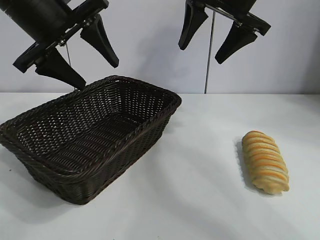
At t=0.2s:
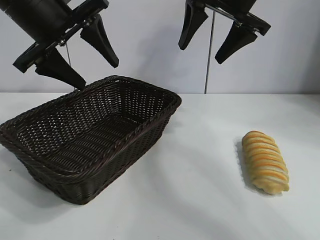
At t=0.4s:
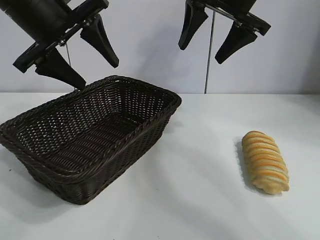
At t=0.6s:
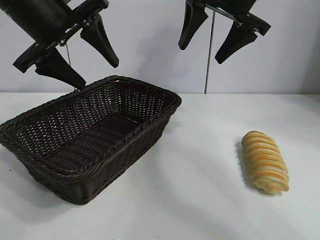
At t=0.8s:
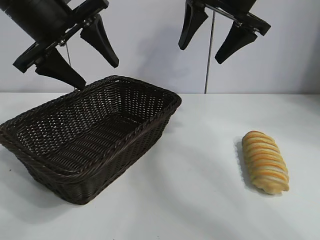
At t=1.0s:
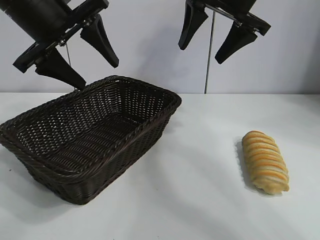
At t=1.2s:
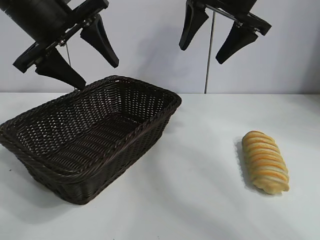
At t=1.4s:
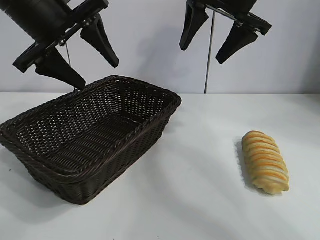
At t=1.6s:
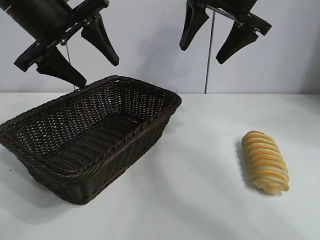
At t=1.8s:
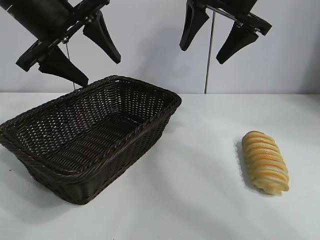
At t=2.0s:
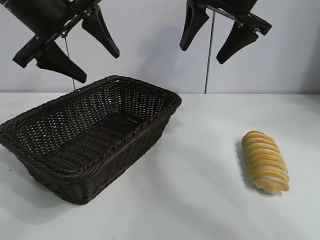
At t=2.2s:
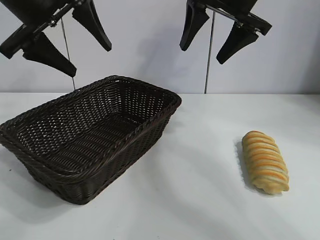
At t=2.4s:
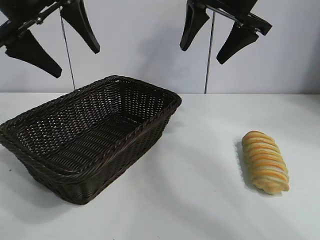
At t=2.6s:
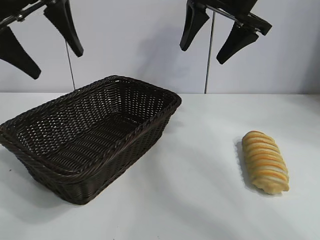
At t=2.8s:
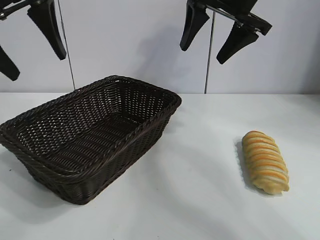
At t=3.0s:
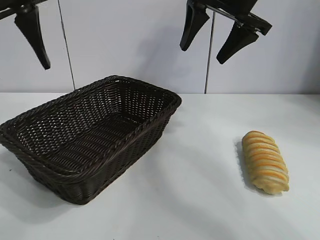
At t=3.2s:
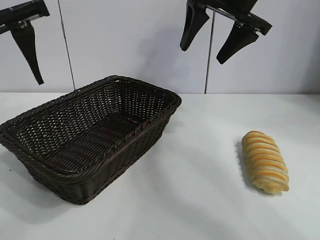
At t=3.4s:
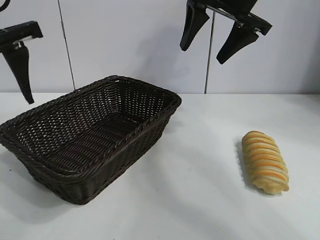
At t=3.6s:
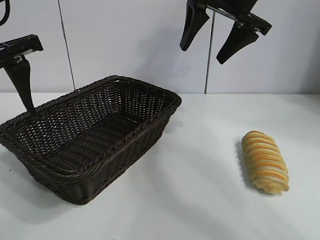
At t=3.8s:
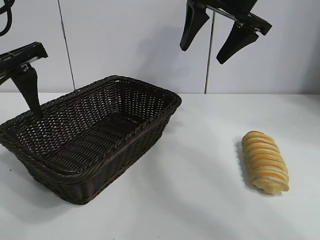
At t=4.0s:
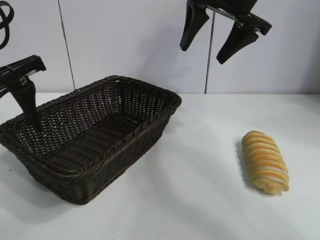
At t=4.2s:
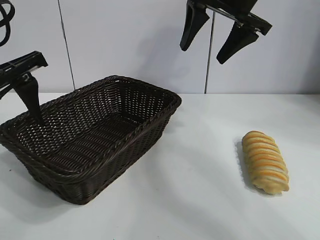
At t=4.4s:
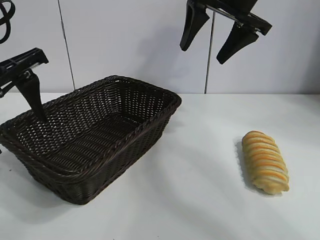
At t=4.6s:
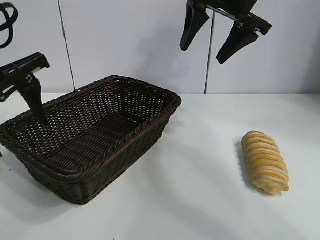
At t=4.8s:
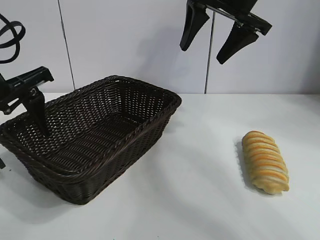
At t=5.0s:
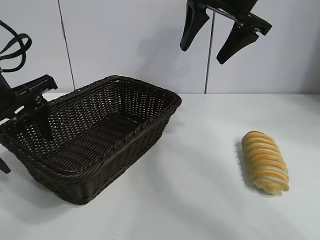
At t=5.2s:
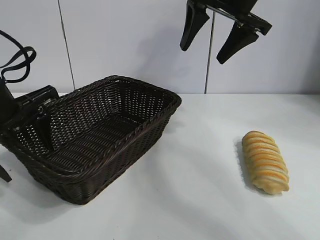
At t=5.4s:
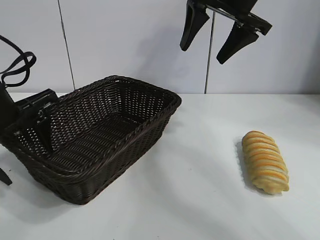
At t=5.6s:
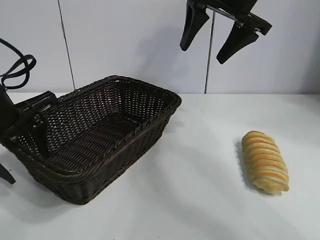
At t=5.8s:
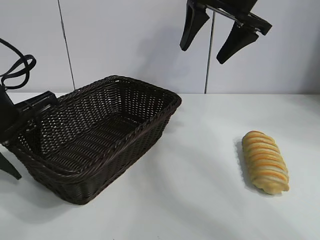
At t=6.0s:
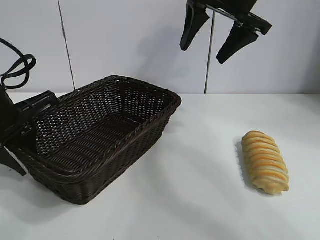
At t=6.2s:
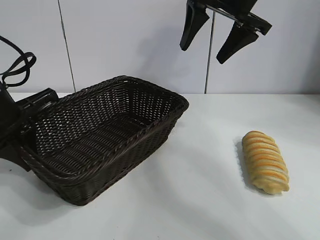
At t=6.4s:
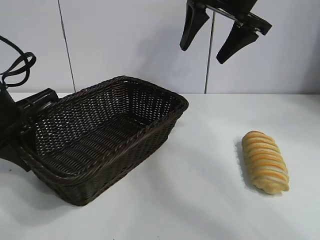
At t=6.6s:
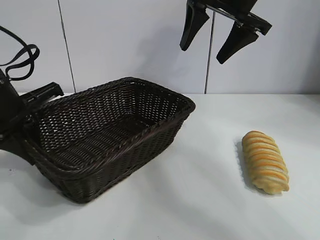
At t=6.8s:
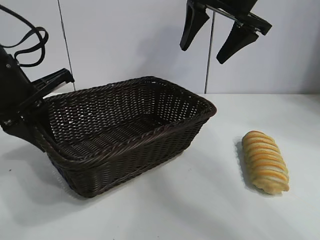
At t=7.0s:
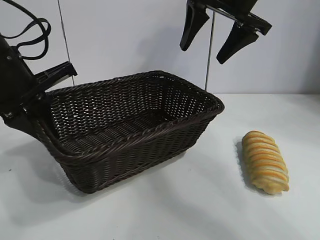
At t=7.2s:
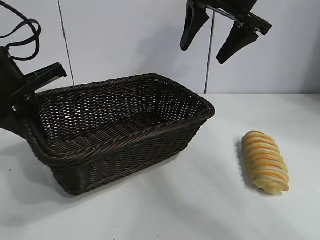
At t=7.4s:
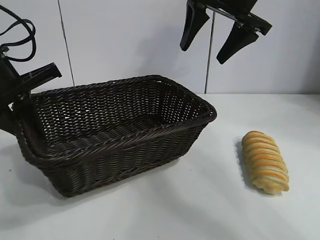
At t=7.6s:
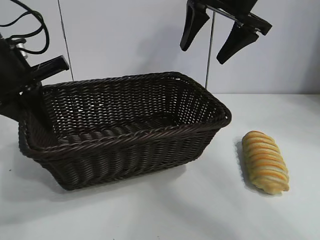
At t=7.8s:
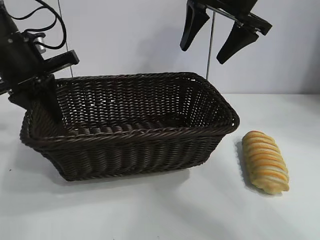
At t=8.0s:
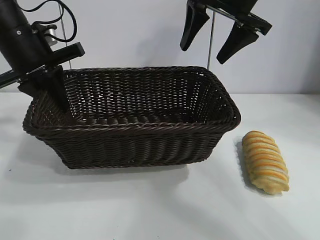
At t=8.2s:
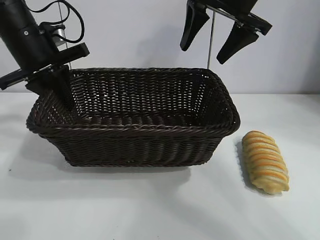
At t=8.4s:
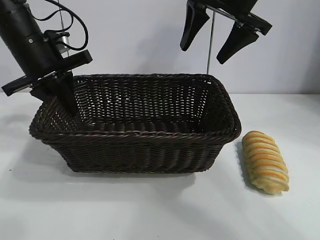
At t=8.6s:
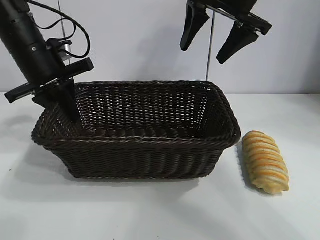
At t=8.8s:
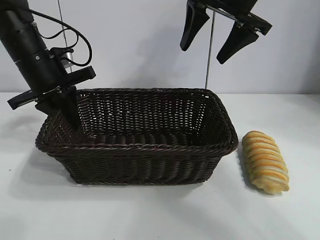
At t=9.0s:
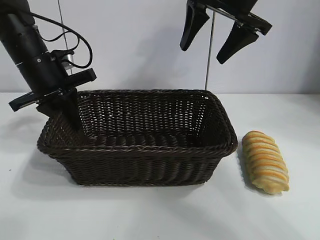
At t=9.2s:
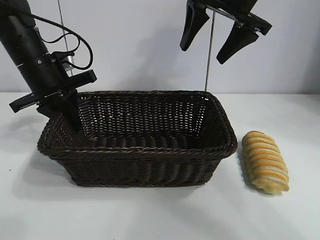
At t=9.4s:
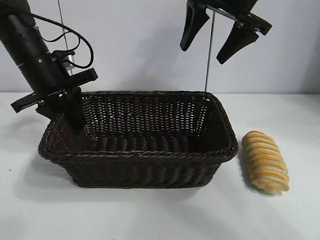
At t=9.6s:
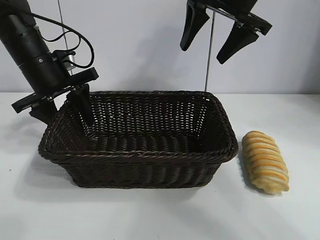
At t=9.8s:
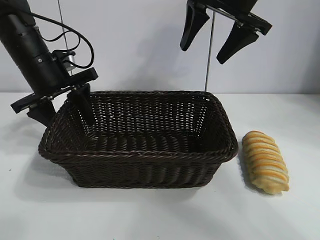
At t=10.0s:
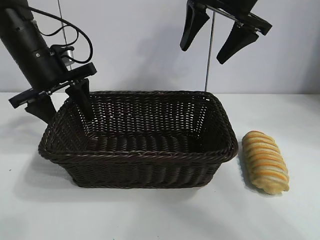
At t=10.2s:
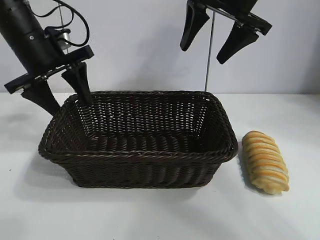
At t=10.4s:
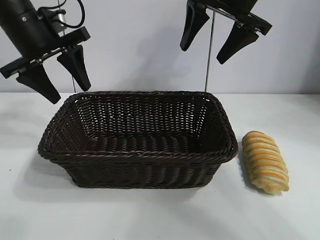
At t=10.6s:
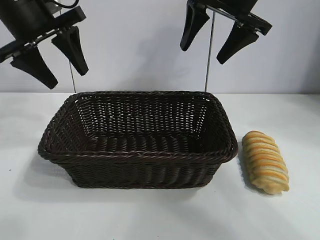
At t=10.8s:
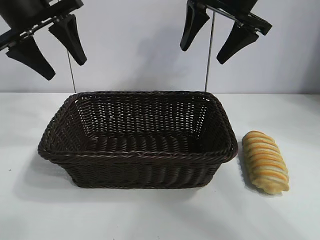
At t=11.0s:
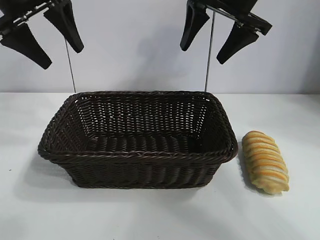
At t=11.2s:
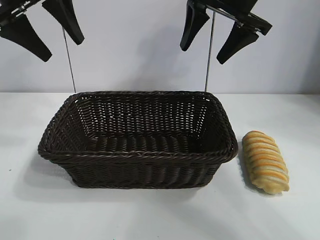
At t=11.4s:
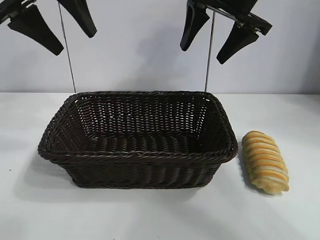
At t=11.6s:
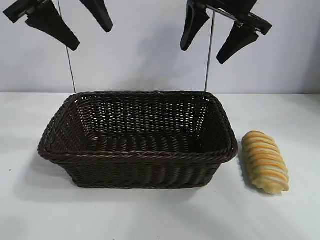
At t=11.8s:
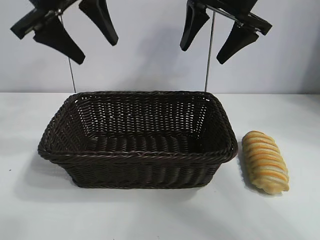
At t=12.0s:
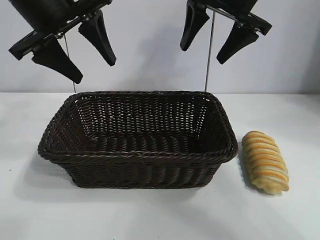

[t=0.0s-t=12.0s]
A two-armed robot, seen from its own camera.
Task of the whole recording: pick up the long bread and put it into the basket.
Step, t=1.6s to t=6.4s: Grasp the basket with the left gripper.
Step, t=6.6s to t=9.8s: Place the basket in the center of the table with the left gripper.

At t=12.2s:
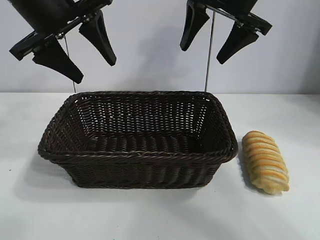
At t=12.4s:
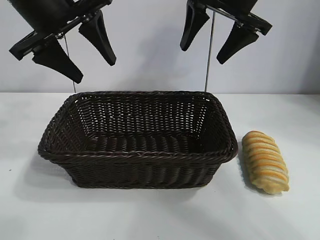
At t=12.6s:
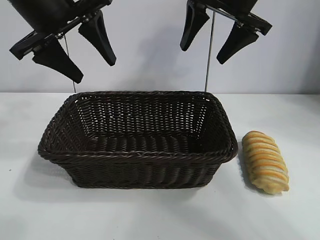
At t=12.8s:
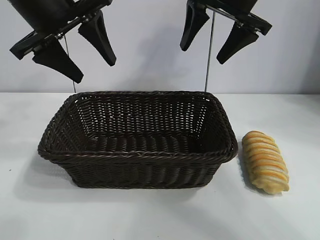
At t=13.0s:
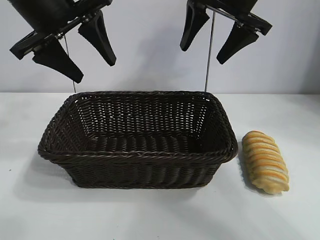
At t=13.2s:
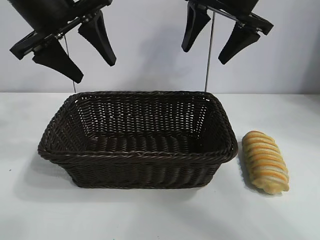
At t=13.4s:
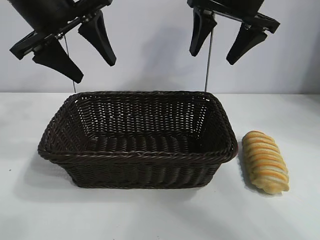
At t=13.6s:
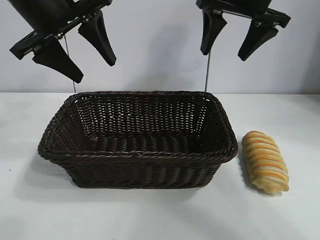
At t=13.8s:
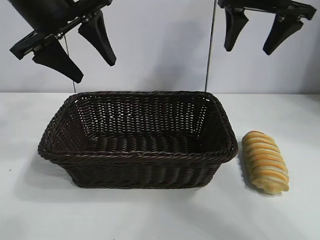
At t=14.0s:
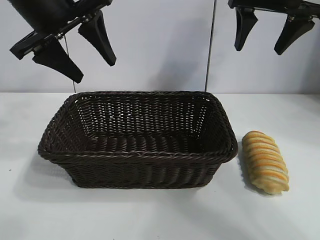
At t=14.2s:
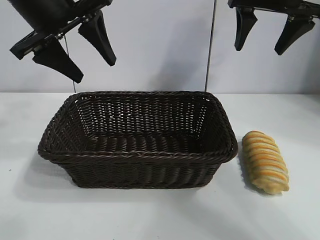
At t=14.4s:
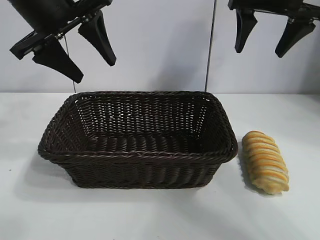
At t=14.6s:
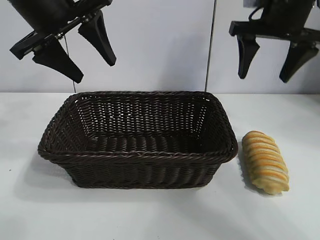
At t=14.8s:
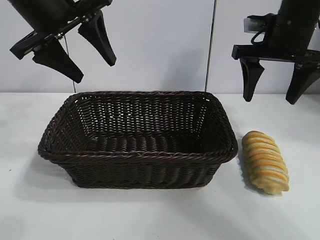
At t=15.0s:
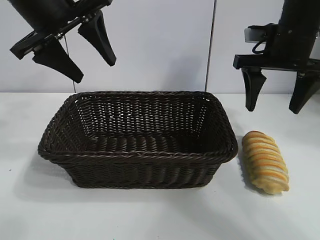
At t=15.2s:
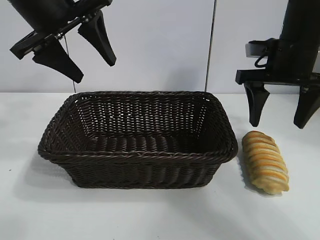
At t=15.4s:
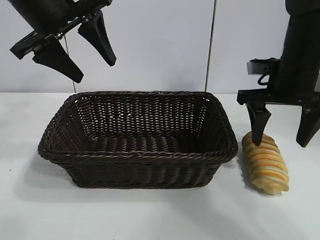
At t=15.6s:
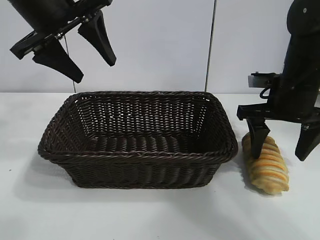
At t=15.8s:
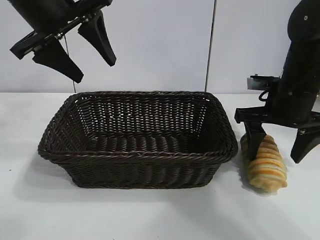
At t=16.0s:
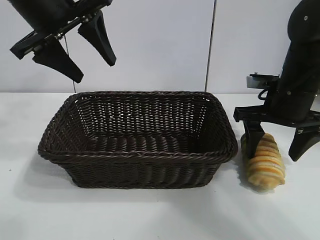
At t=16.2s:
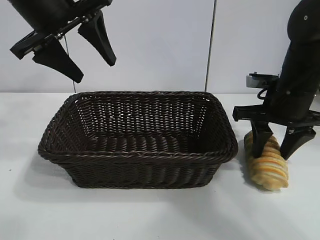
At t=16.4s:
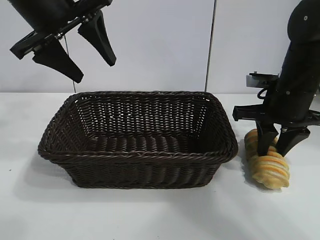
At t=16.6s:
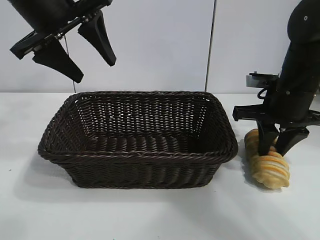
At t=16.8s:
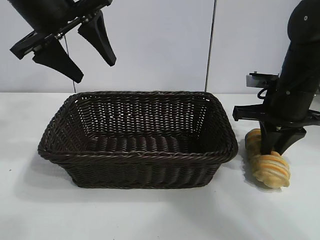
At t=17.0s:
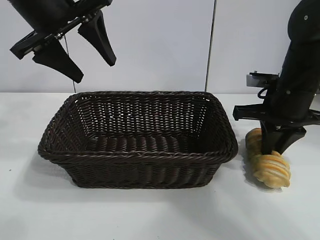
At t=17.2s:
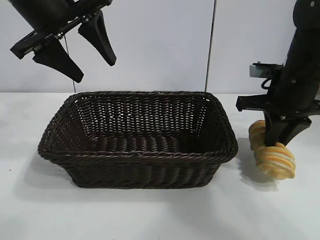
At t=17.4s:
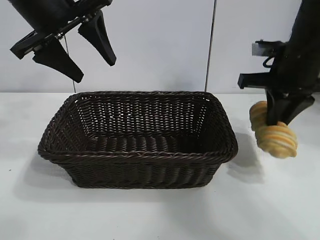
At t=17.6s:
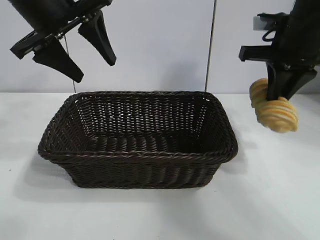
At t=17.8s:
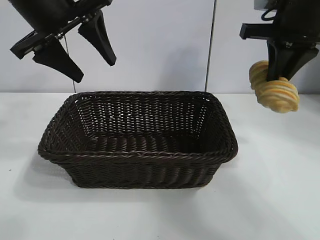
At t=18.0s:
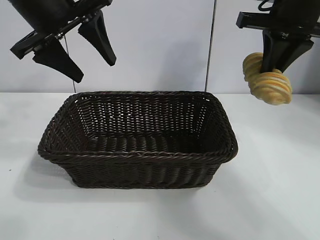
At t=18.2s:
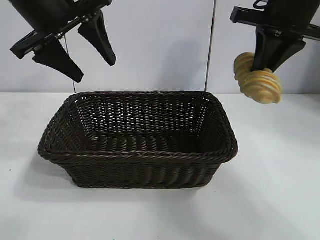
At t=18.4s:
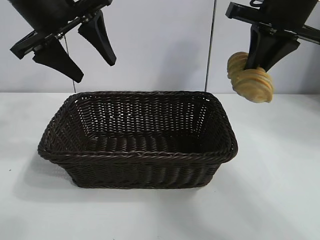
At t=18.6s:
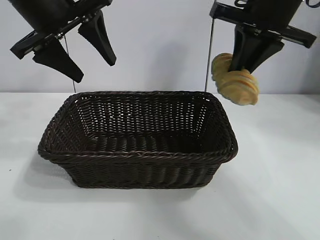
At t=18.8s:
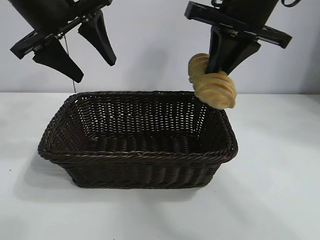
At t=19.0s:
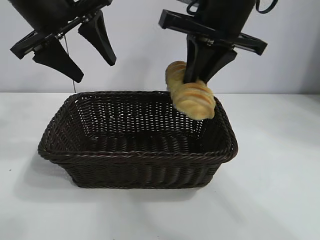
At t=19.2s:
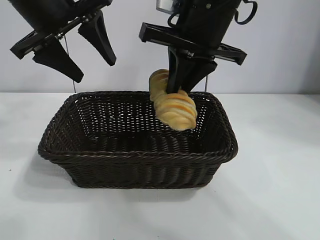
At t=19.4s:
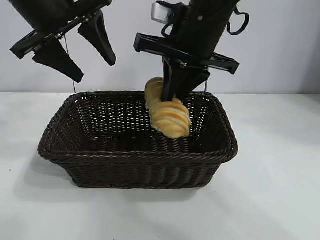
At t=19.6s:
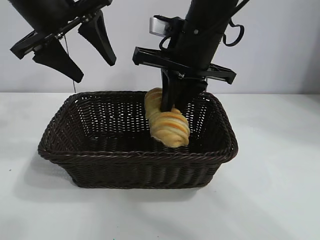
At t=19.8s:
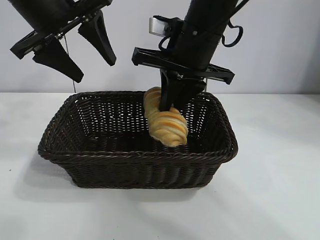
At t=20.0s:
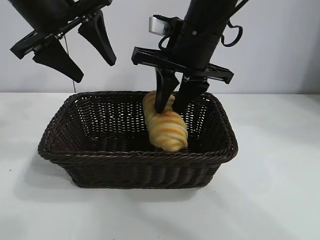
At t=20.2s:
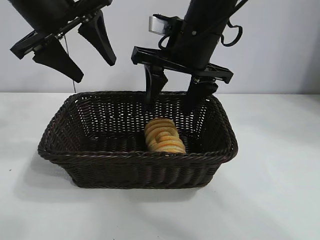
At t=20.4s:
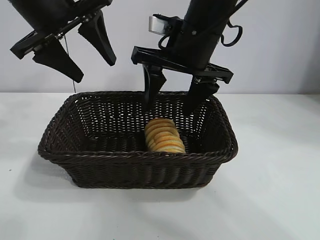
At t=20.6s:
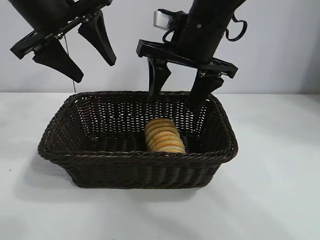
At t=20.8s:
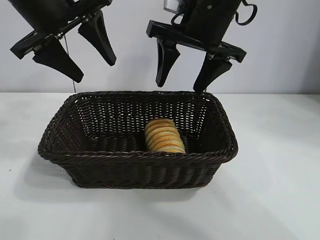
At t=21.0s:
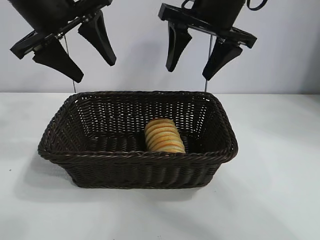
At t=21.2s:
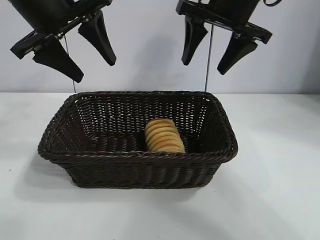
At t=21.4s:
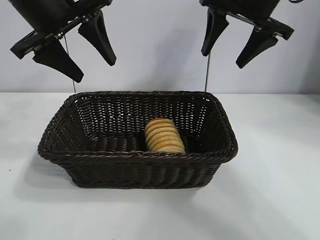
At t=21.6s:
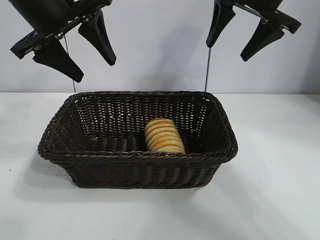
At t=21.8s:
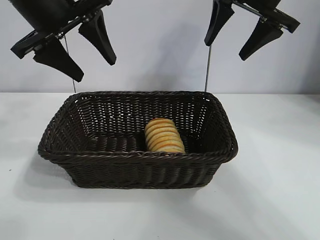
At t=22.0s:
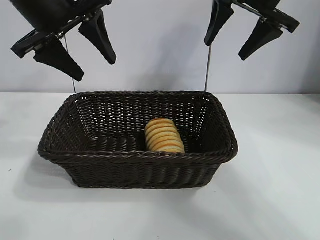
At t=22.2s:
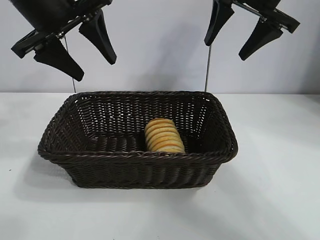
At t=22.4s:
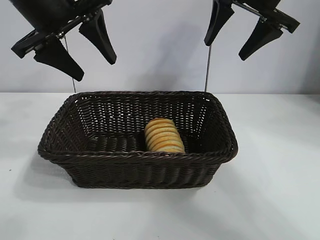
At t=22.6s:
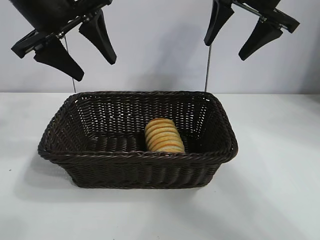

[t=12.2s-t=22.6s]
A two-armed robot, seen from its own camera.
Task of the whole recording: pick up the long bread and put it into the basket.
Step, t=12.2s to t=16.8s: Grasp the long bread with right gripper.
Step, t=17.0s to t=20.2s: Place the long bread in the basket with right gripper.
